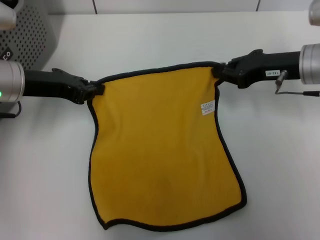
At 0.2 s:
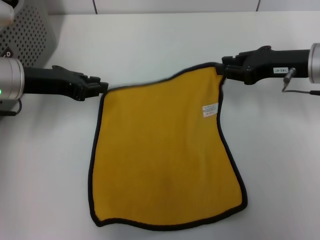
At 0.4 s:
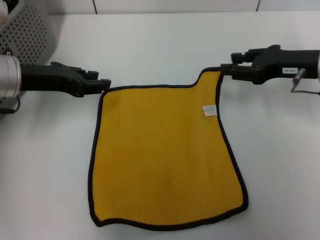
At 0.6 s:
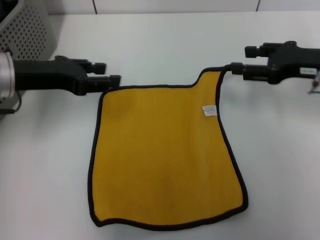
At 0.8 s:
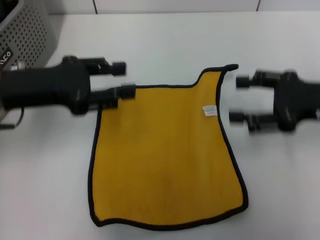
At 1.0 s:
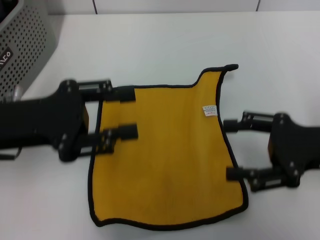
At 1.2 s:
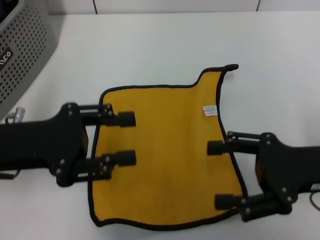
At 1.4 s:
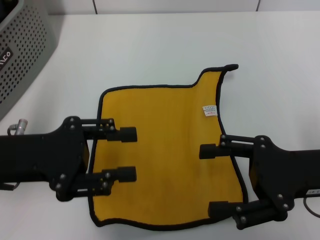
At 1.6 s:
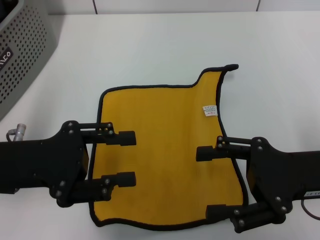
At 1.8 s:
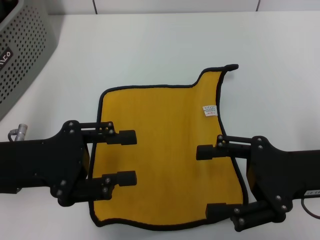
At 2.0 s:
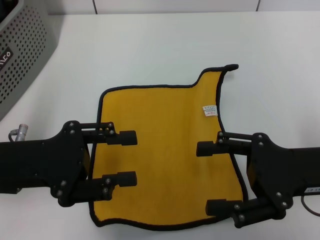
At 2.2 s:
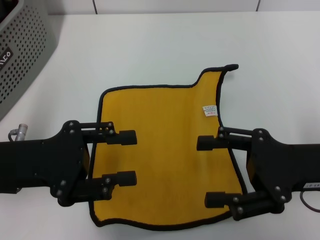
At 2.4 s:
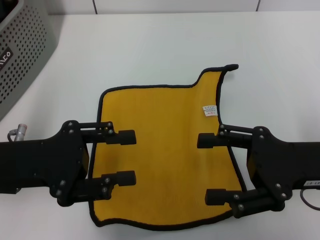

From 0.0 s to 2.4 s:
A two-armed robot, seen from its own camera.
Task of the whole recording: pick up the towel from the storage box and lay it flat on the table.
From 0.0 s to 1.2 s: Both grippers travel together backward, roughly 10 cm. The left gripper opens up. The right gripper opens.
From 1.2 s to 2.4 s: The grippers stay close to where they were, moving slightly.
